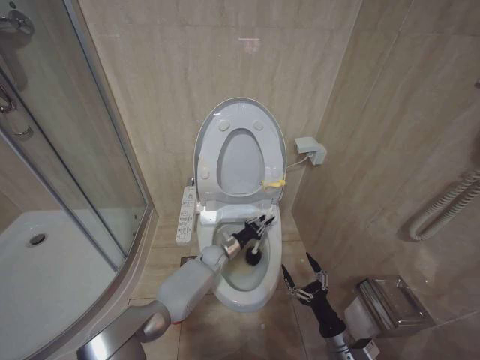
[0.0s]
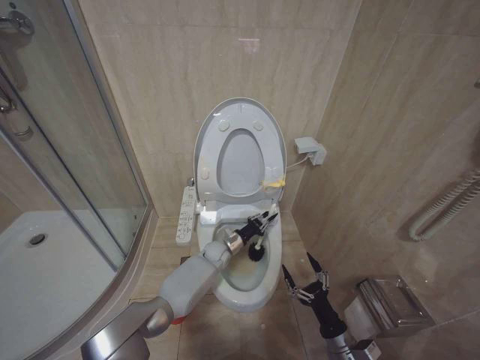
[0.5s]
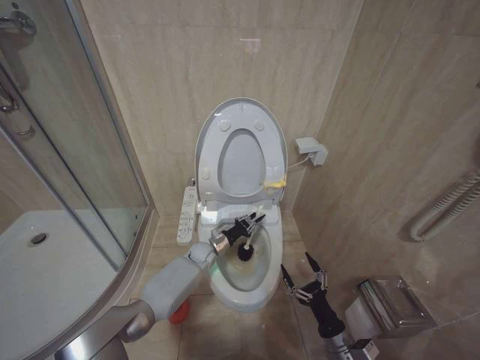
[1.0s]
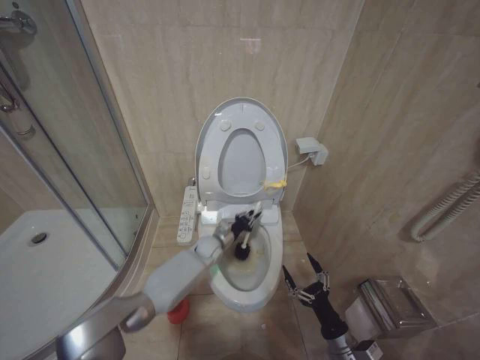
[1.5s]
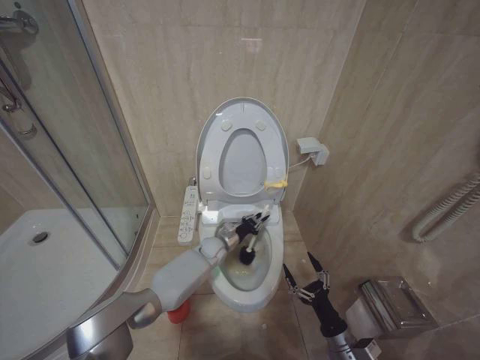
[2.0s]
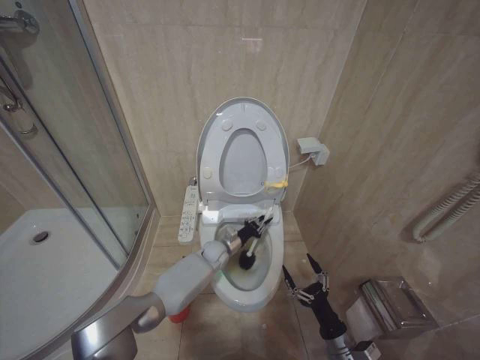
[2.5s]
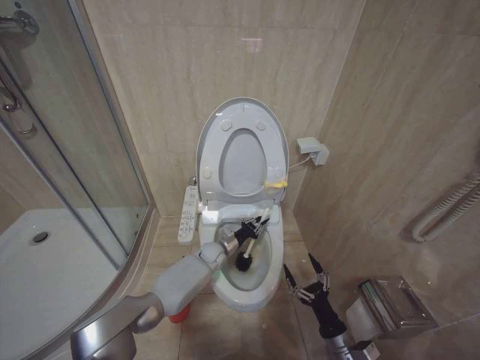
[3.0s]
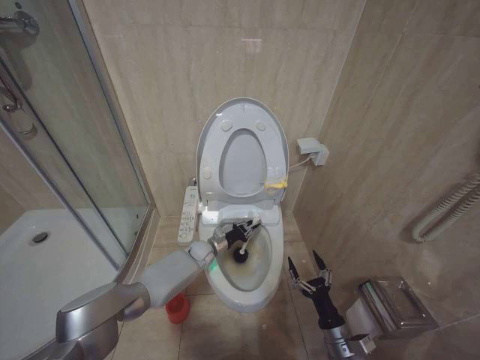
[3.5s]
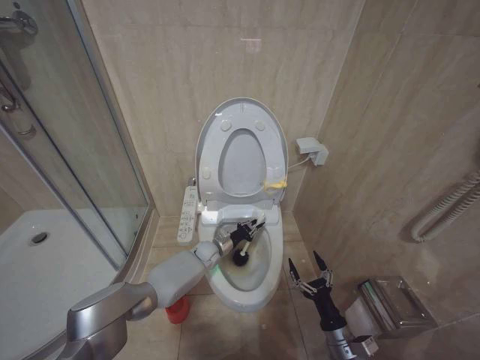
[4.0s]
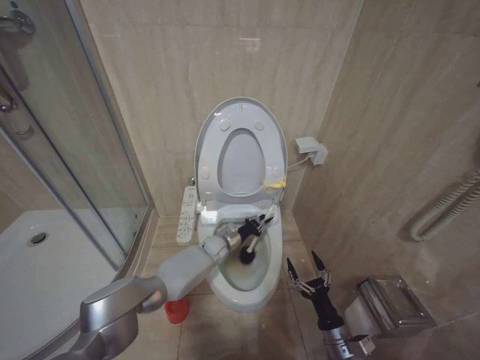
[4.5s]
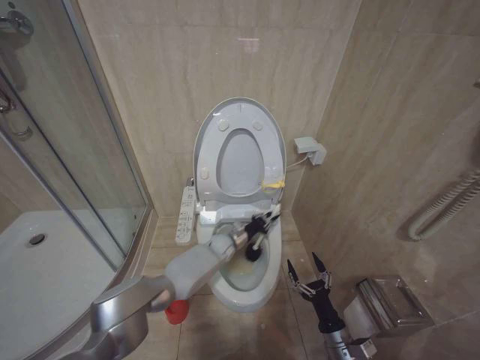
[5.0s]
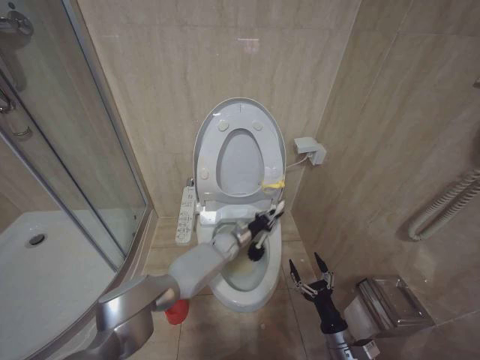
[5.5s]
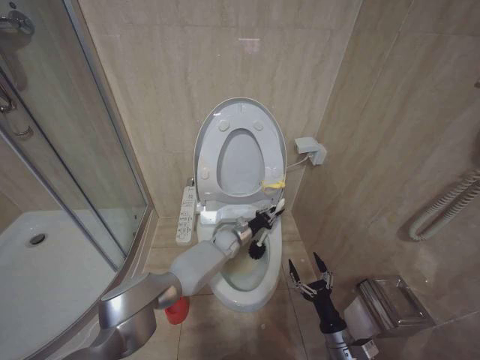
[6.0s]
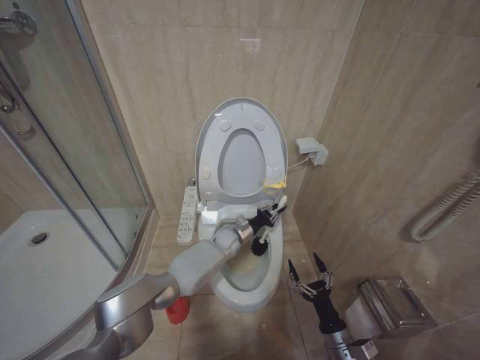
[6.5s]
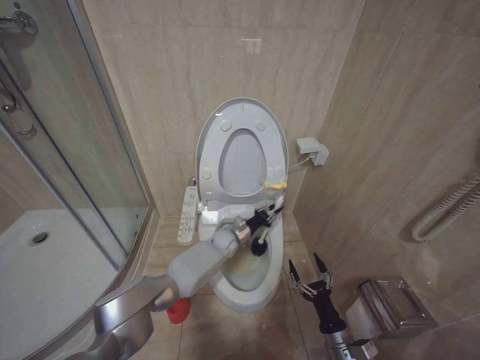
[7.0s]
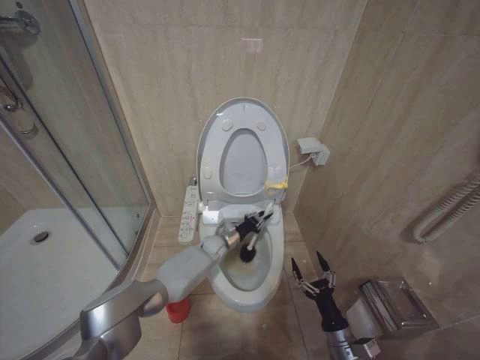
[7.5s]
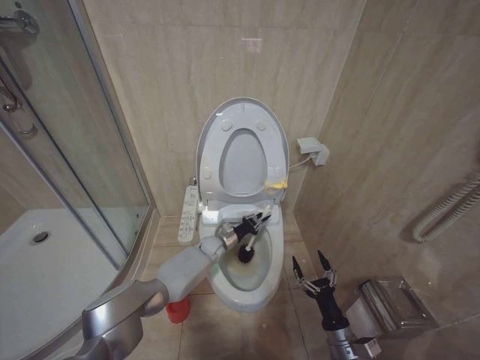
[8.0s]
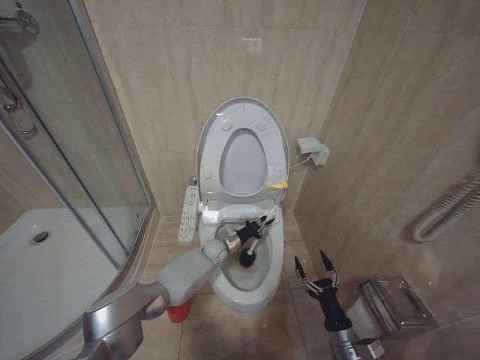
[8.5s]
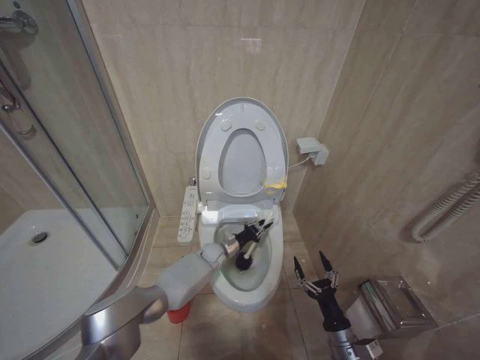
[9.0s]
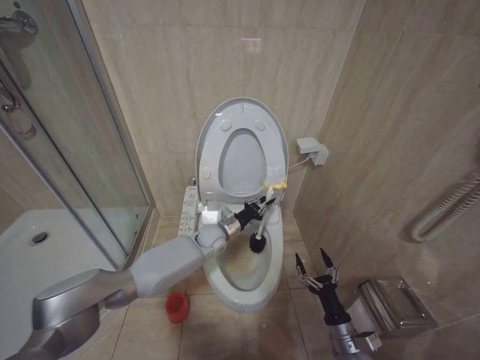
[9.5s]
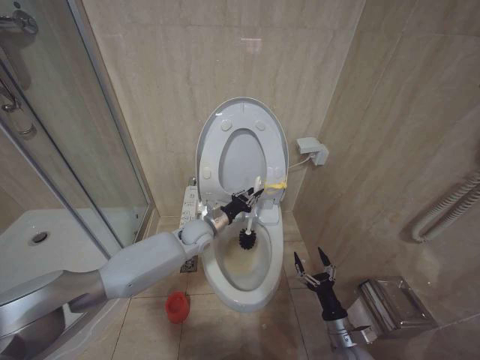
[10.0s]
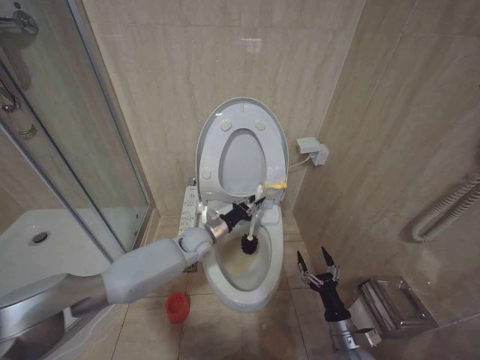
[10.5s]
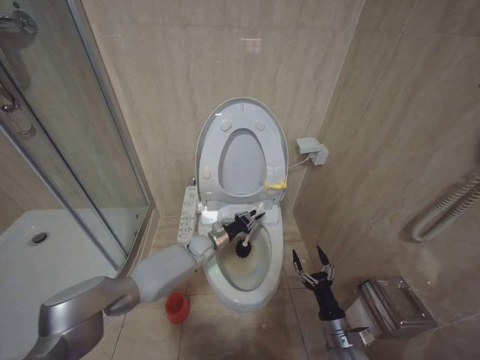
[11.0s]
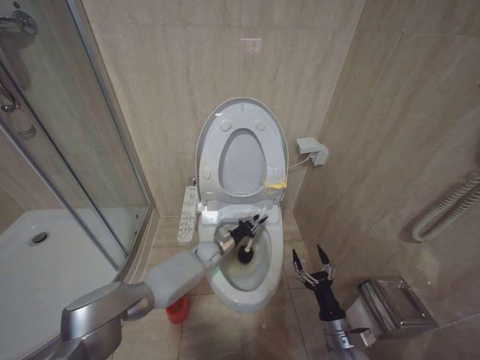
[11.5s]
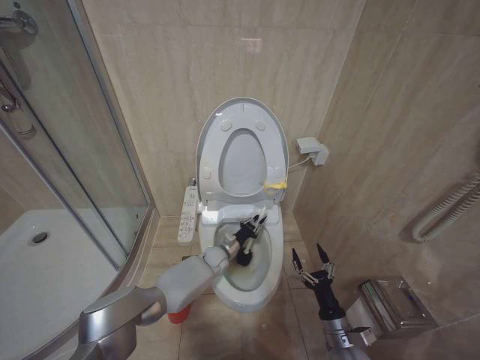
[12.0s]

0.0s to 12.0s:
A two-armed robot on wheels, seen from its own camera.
Task of the whole recording: Open the toilet lid, clean the toilet bowl with a toilet brush, close the toilet lid, and flush.
2.0s to 4.0s: There are only small adjustments of the grippers.
4.0s to 6.0s: The left gripper travels to the right by roughly 5 cm.
6.0s to 8.0s: The left gripper is displaced to the left by about 5 cm.
8.0s to 10.0s: The left gripper heads upward, covering approximately 15 cm.
10.0s to 12.0s: The left gripper is displaced downward by roughly 15 cm.

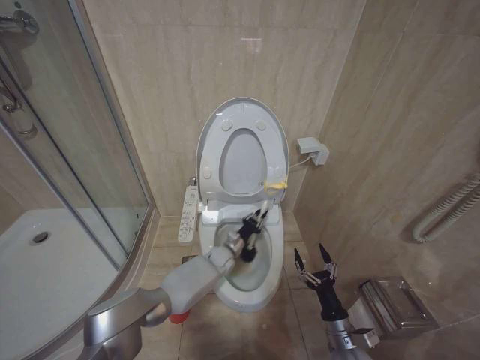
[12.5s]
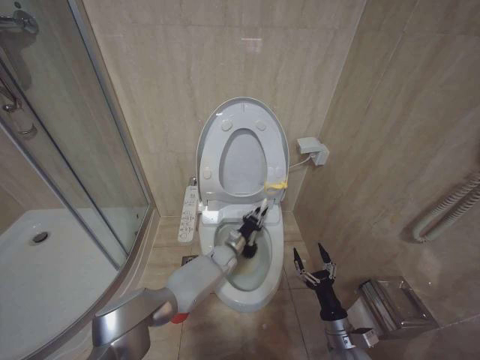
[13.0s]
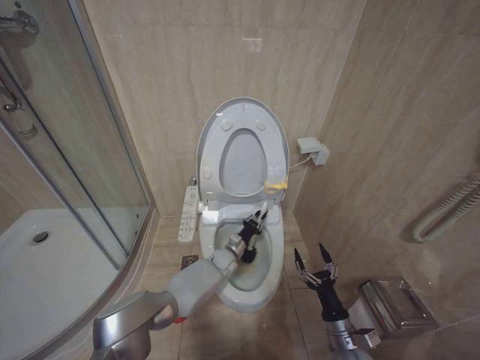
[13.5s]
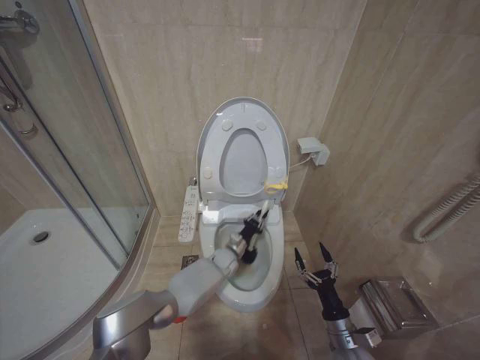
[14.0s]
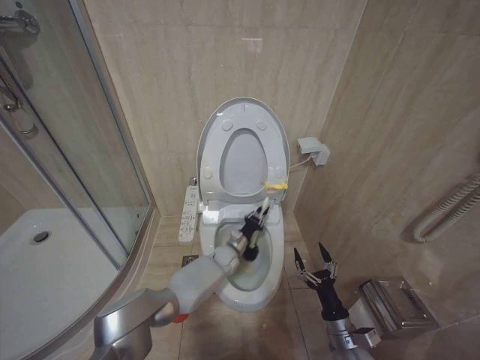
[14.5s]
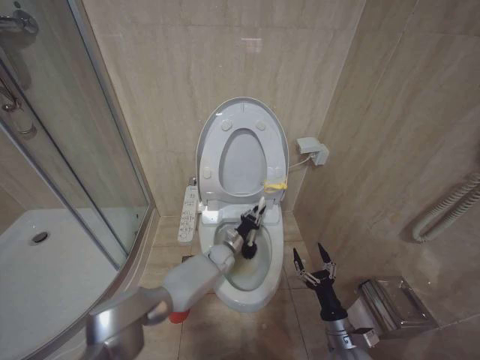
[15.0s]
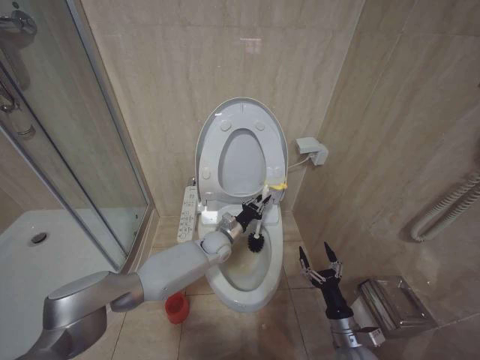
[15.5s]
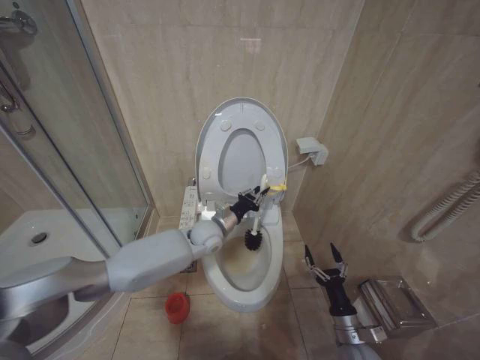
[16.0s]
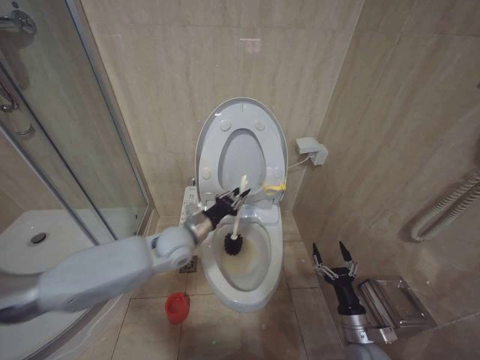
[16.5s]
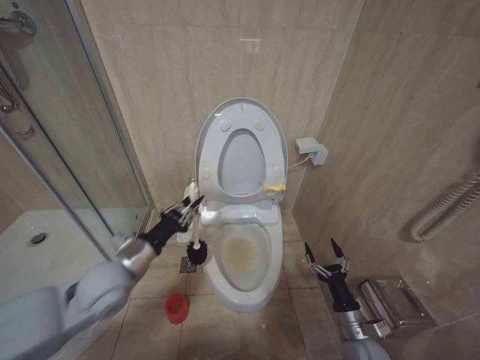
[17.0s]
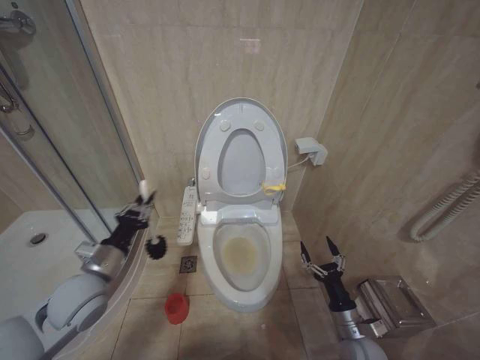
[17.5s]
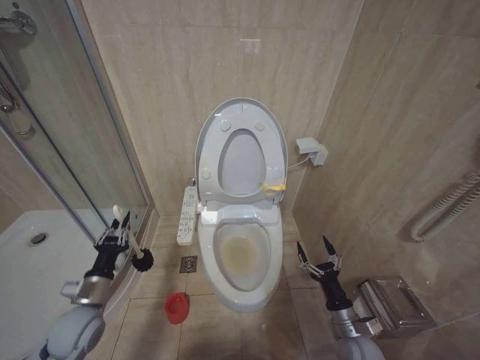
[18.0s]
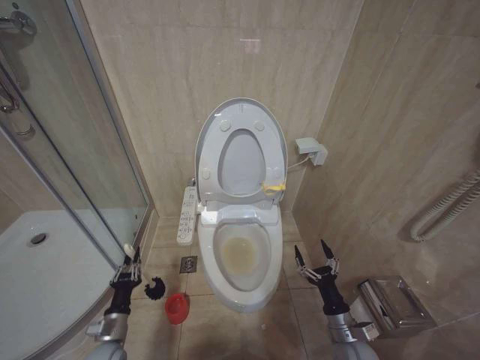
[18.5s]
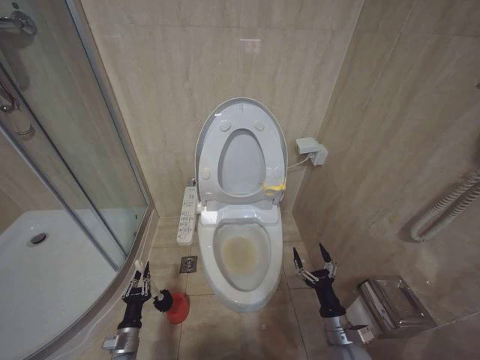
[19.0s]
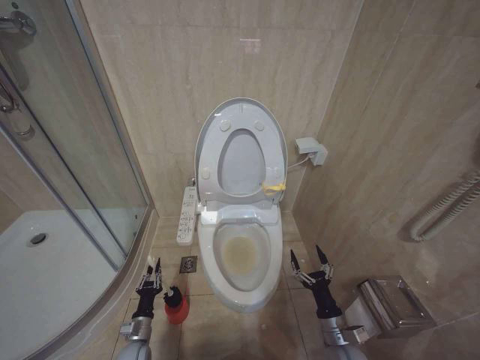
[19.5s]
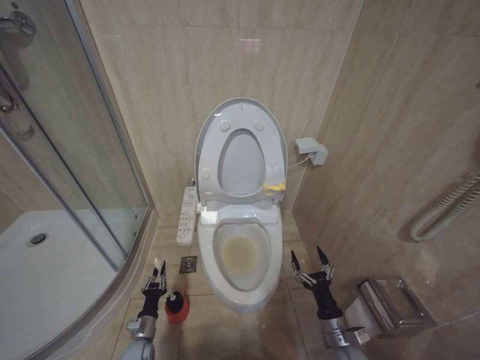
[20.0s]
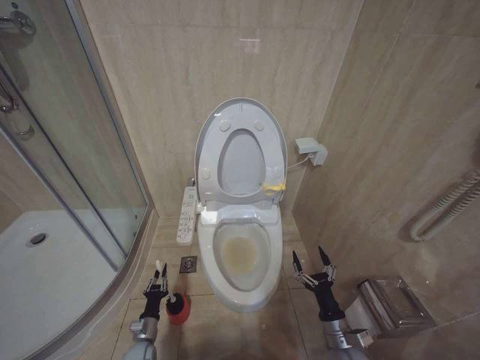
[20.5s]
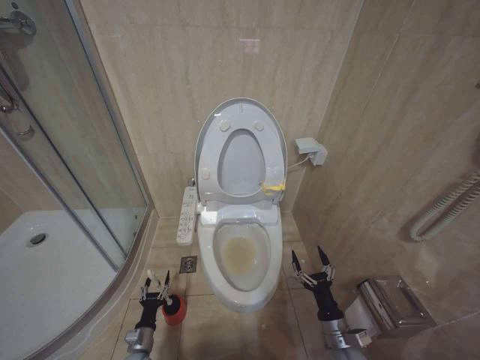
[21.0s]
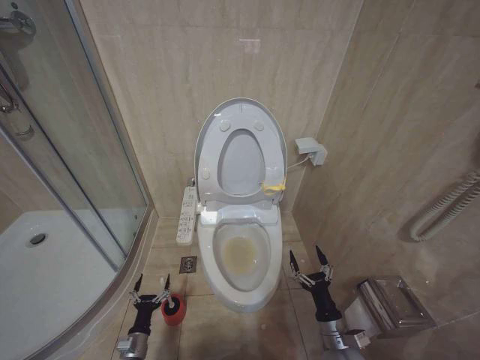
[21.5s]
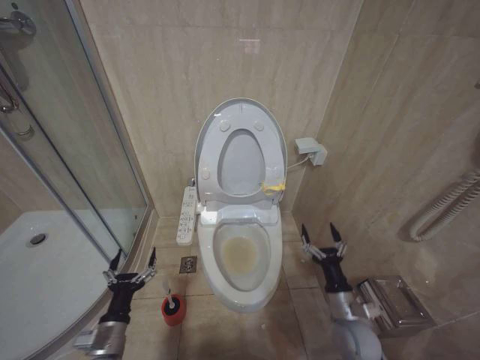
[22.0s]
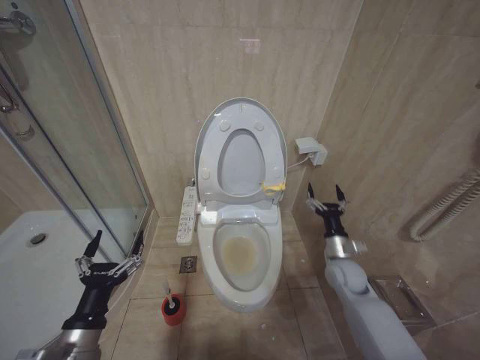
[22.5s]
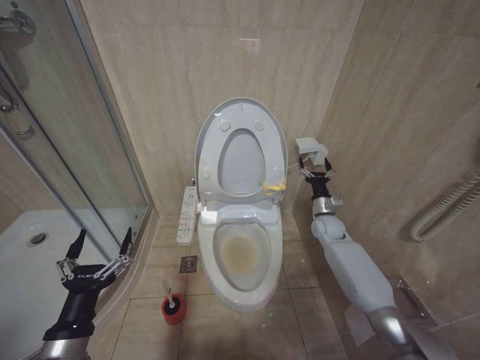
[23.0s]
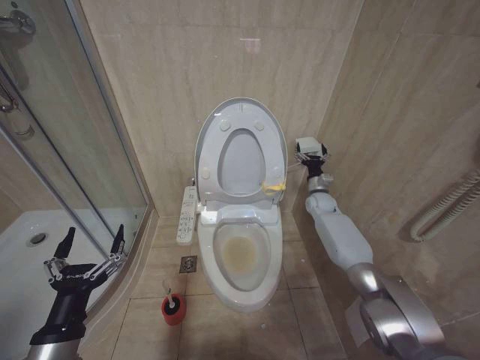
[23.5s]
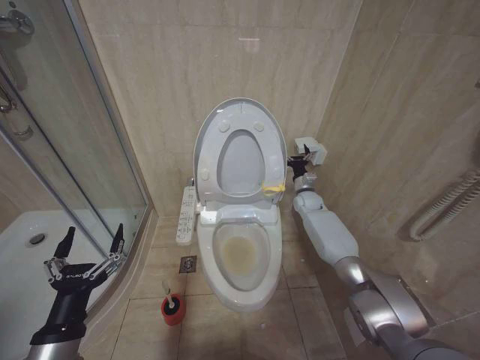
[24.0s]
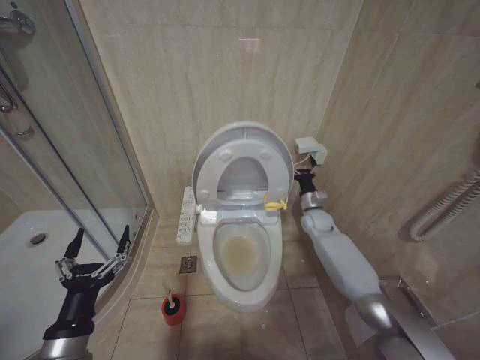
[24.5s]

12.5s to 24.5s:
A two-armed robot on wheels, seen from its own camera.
Task of the whole recording: Open the toilet lid, clean the toilet bowl with a toilet brush, close the toilet lid, and flush.
12.5s to 14.5s: The grippers make only small movements.
14.5s to 16.5s: The left gripper shifts approximately 25 cm upward and to the left.
16.5s to 18.5s: The left gripper shifts approximately 35 cm downward, to the left and backward.
18.5s to 20.5s: The left gripper travels downward by roughly 15 cm.
20.5s to 22.5s: The left gripper goes some 35 cm upward and backward, and opens its fingers; the right gripper shifts about 20 cm forward and upward.
22.5s to 24.5s: The right gripper shifts approximately 20 cm forward.

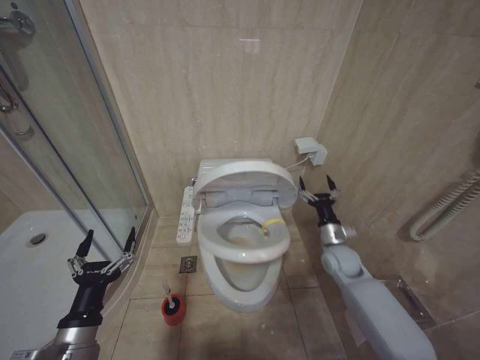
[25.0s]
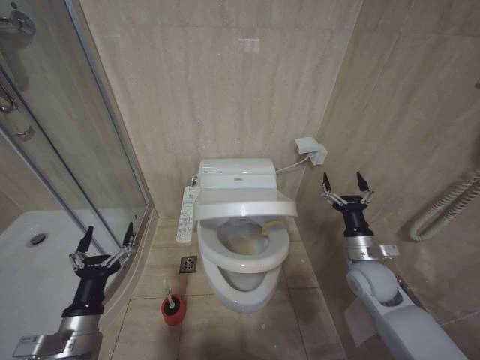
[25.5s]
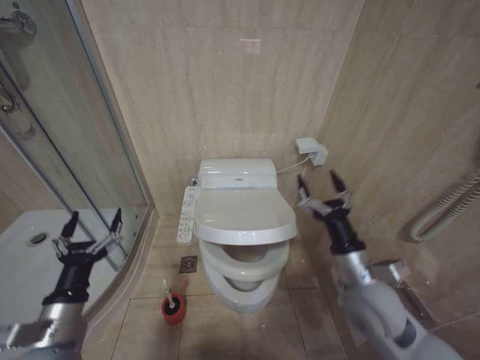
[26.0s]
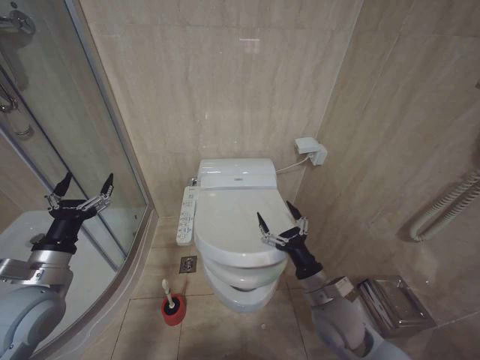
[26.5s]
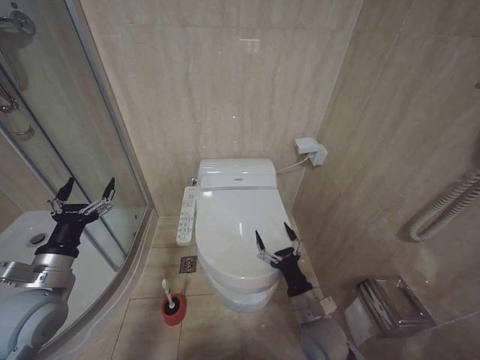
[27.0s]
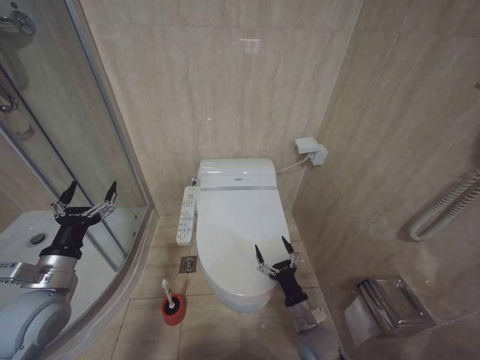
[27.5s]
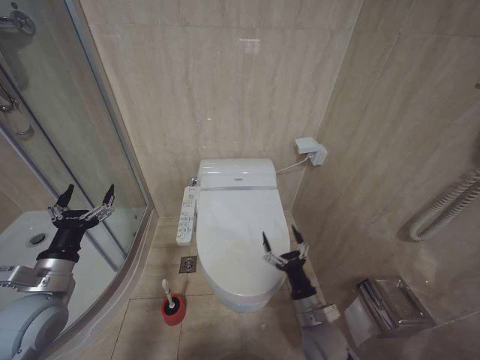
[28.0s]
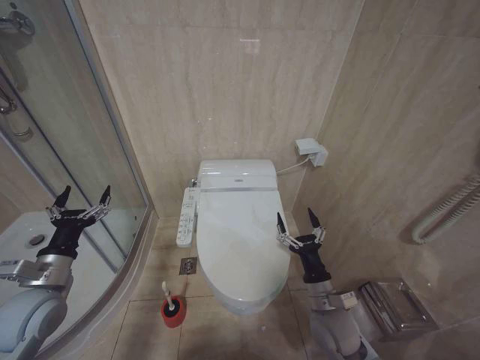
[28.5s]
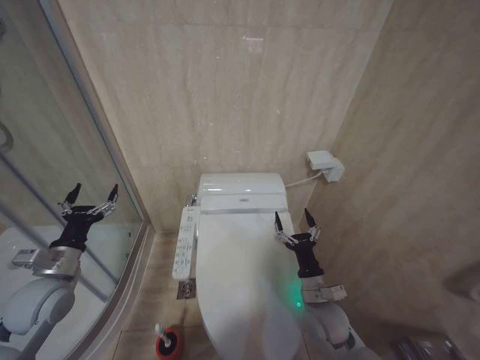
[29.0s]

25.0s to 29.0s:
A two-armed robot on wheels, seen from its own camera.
Task of the whole recording: Open the toilet lid, clean the toilet bowl with a toilet brush, close the toilet lid, and flush.
25.0s to 27.0s: The left gripper heads forward, upward and to the left, covering approximately 15 cm. The right gripper moves backward and to the left, some 20 cm.
27.0s to 29.0s: The left gripper shifts by approximately 5 cm. Meanwhile the right gripper reaches some 10 cm downward, then returns.
